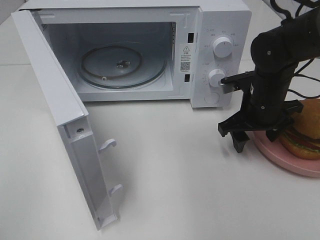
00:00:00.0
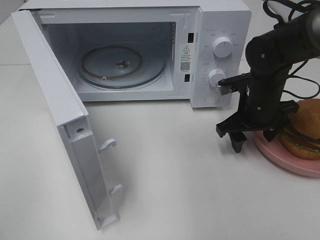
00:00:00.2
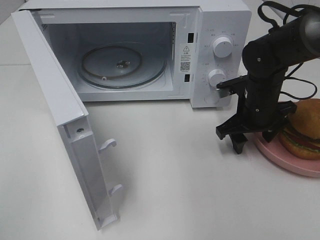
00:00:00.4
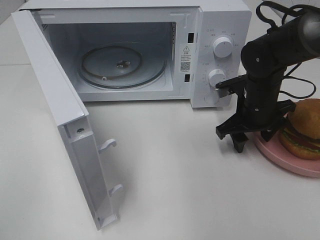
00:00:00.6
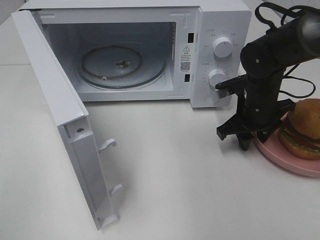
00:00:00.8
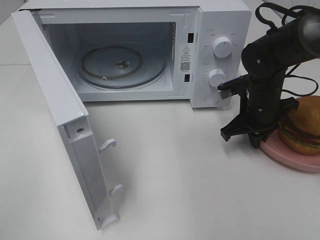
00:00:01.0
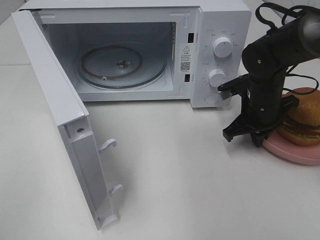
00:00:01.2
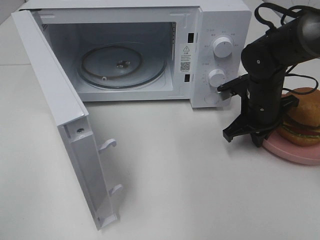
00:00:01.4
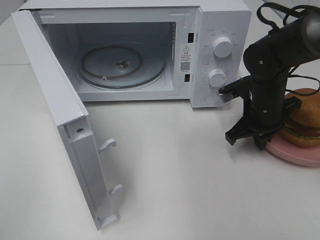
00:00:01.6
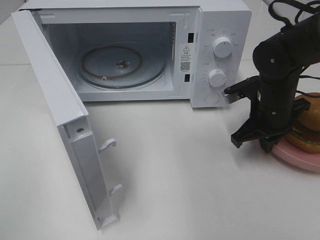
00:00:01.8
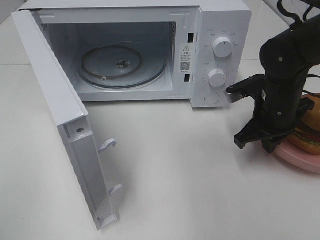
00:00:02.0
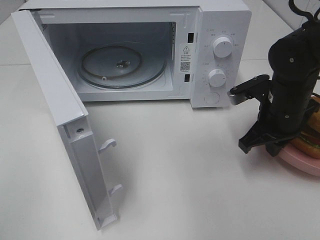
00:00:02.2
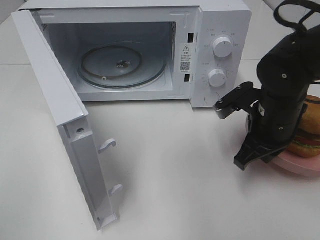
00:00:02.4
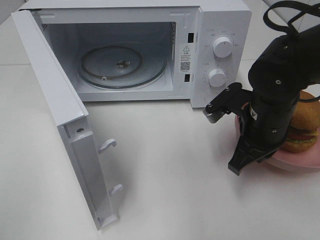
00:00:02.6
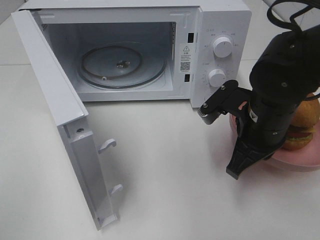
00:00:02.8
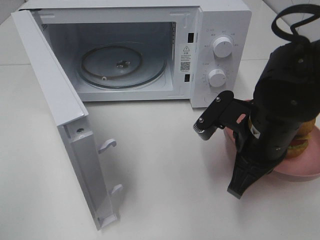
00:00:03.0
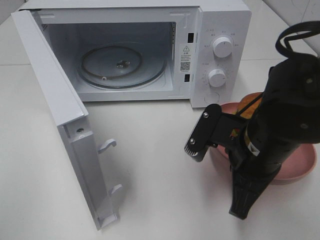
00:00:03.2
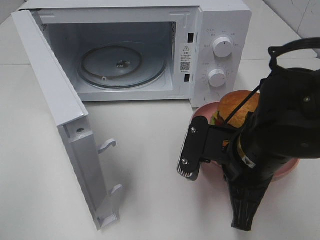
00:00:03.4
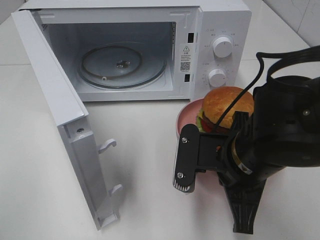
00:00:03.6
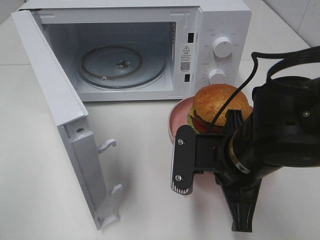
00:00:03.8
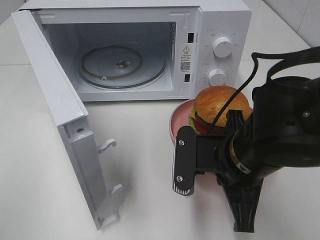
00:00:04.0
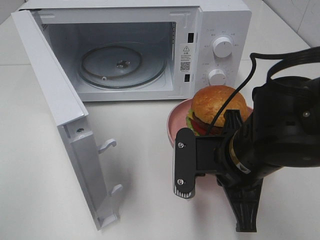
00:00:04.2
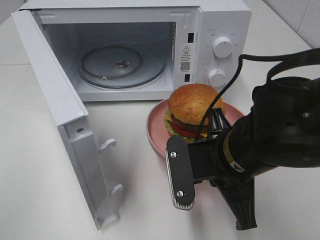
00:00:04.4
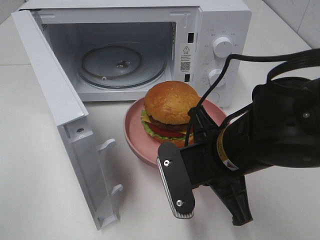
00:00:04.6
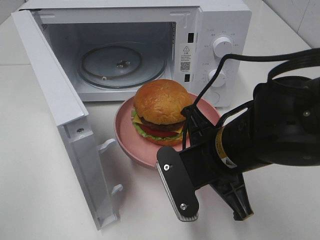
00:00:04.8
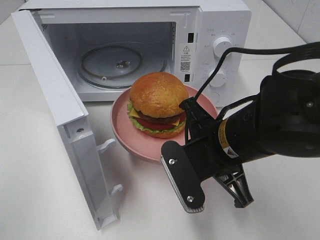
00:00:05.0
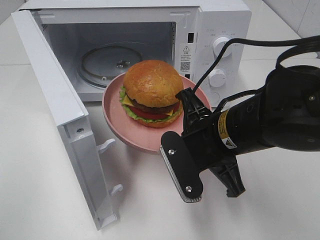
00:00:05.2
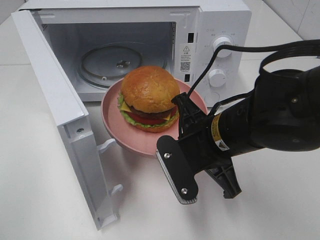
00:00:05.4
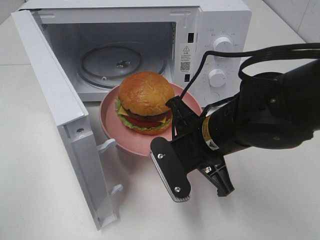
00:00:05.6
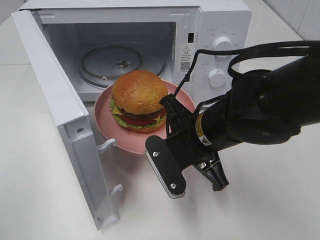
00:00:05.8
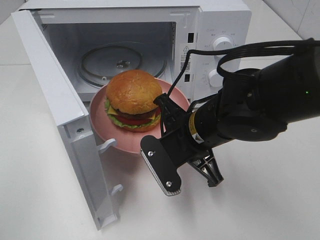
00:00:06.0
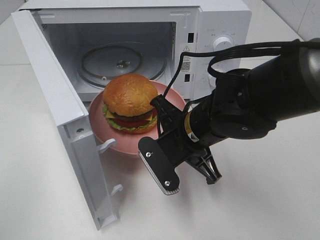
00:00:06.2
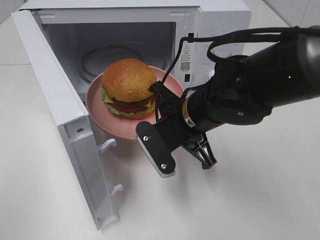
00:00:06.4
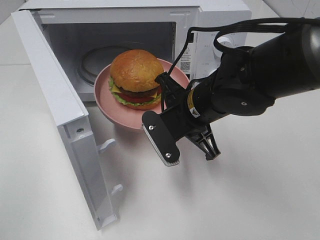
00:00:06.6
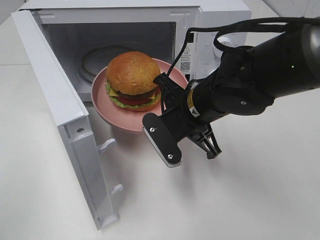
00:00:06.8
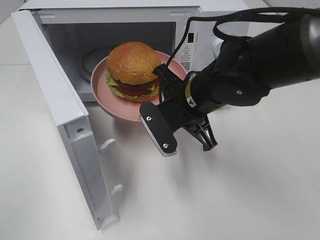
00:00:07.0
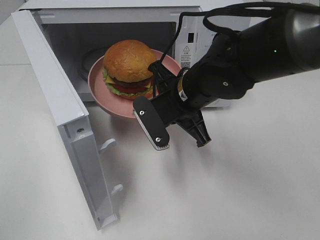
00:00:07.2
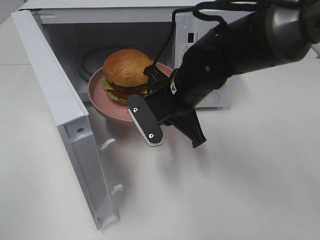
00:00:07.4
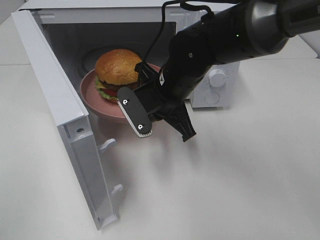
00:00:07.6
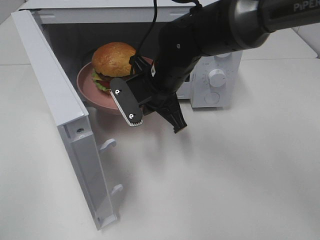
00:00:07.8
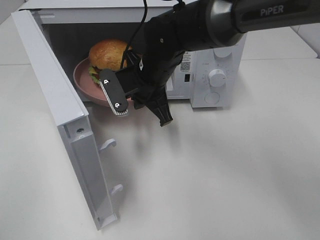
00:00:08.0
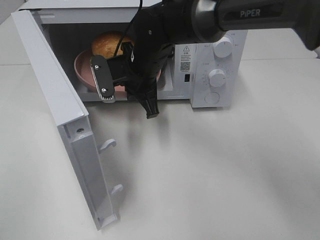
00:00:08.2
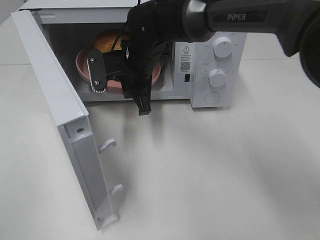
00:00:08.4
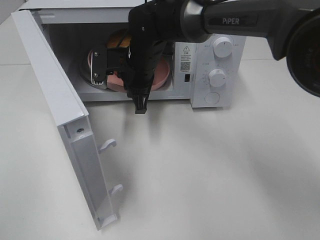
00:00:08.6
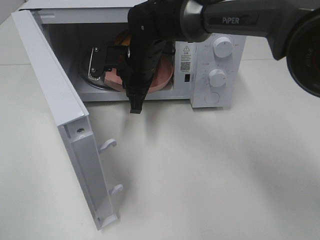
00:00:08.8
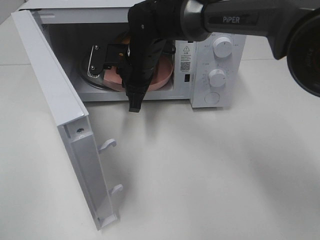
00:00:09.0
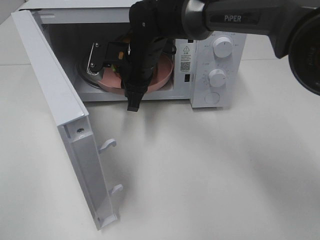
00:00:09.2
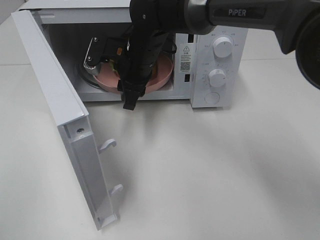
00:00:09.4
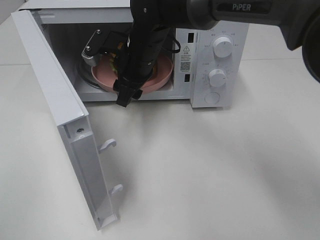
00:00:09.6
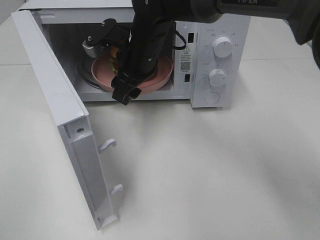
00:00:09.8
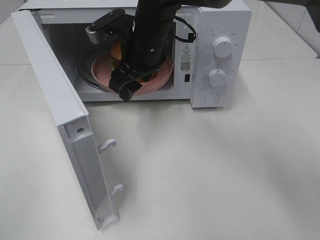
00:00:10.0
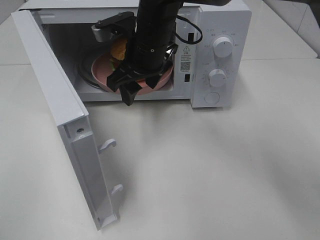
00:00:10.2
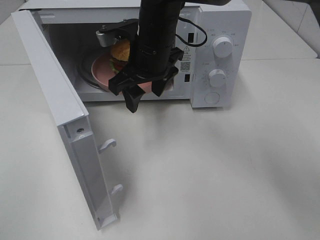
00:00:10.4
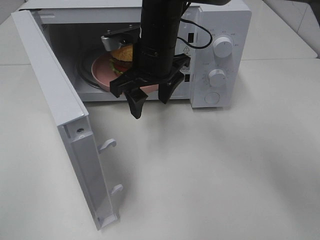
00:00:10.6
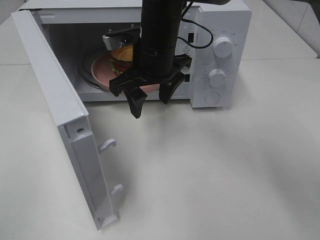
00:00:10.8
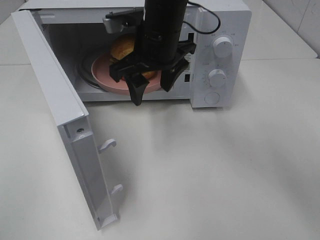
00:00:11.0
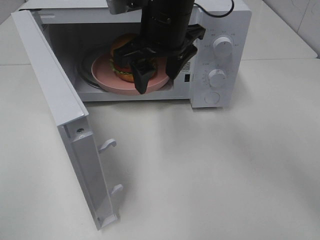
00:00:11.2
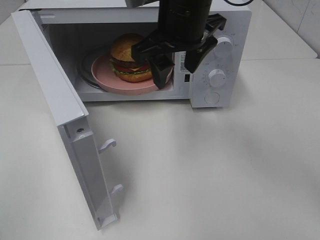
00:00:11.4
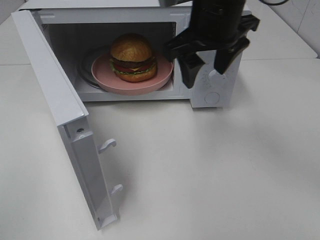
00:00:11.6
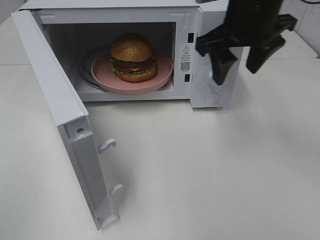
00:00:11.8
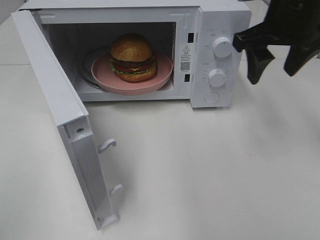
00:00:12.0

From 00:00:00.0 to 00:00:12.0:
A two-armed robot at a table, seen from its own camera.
Task of the whole recording: Heat the burger.
Step, from 00:00:01.2 to 00:00:09.2: Right hand: place the plate in the microwave.
From 00:00:00.0 to 00:00:01.6: The right gripper closes.
From 00:00:01.6 to 00:00:03.0: The right gripper travels backward and to the left by roughly 15 cm.
From 00:00:03.0 to 00:00:04.4: The right gripper ends up some 5 cm from where it was.
From 00:00:04.4 to 00:00:06.0: The right gripper heads forward, covering roughly 5 cm.
From 00:00:06.0 to 00:00:07.6: The right gripper moves forward, roughly 10 cm.
From 00:00:07.6 to 00:00:09.0: The right gripper shifts approximately 10 cm forward and to the left.
From 00:00:09.0 to 00:00:10.4: The right gripper moves some 5 cm, and opens up.
From 00:00:10.4 to 00:00:12.0: The right gripper moves to the right and upward, roughly 20 cm.

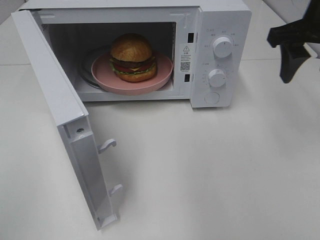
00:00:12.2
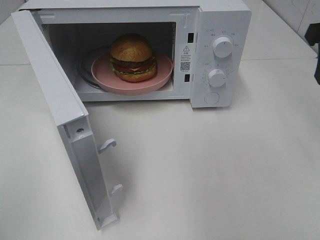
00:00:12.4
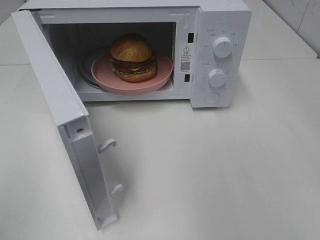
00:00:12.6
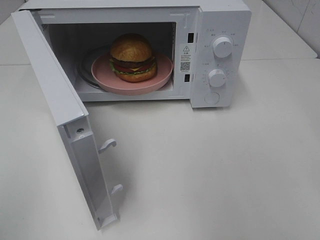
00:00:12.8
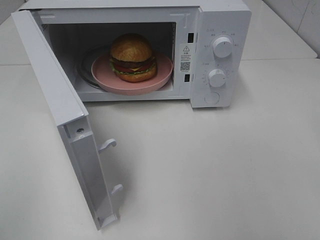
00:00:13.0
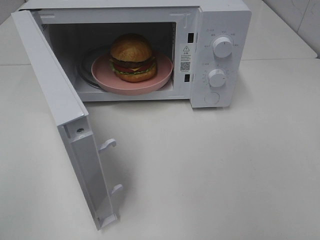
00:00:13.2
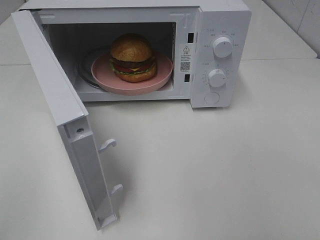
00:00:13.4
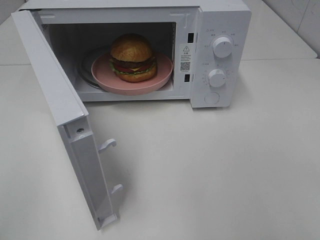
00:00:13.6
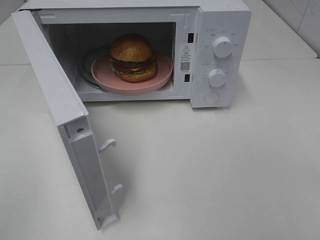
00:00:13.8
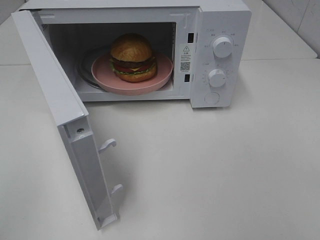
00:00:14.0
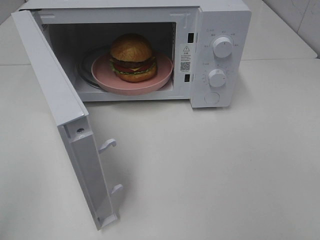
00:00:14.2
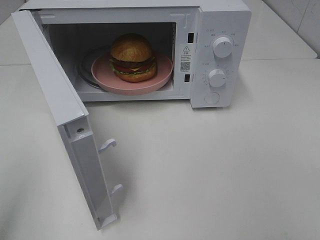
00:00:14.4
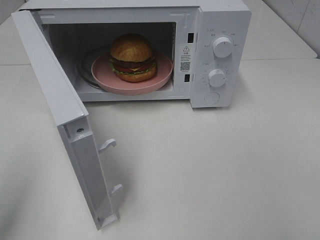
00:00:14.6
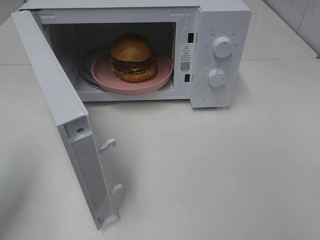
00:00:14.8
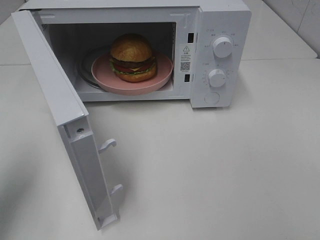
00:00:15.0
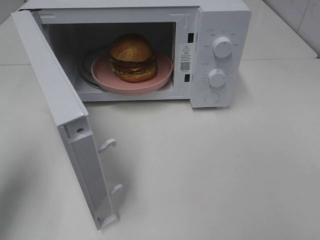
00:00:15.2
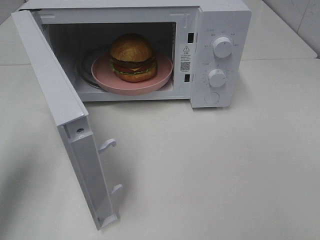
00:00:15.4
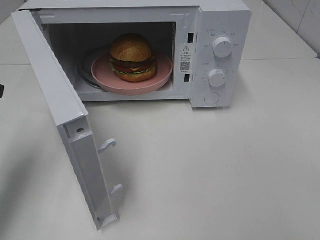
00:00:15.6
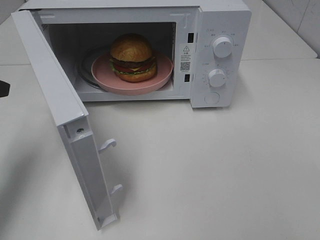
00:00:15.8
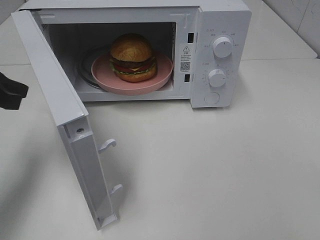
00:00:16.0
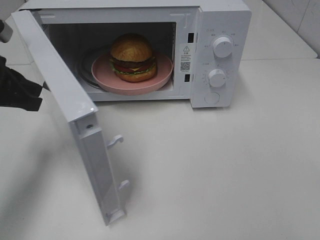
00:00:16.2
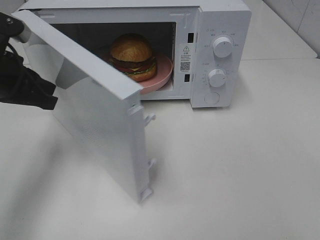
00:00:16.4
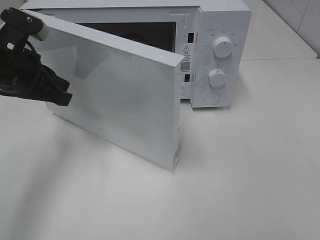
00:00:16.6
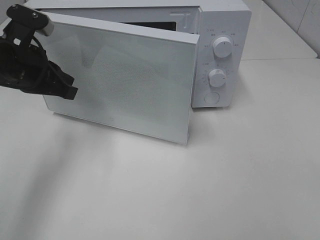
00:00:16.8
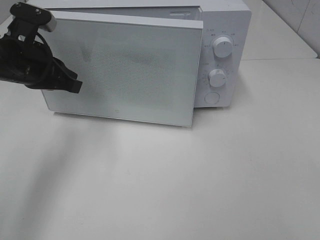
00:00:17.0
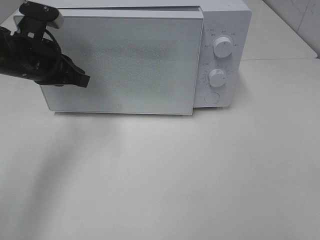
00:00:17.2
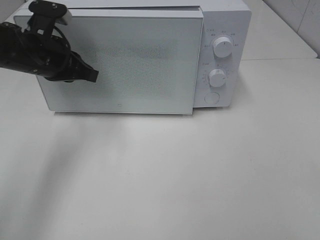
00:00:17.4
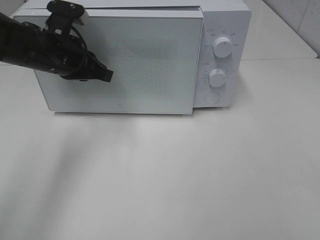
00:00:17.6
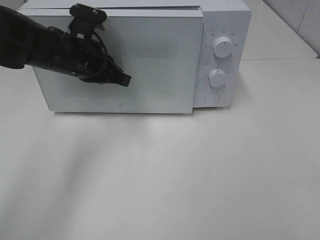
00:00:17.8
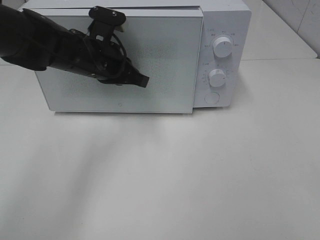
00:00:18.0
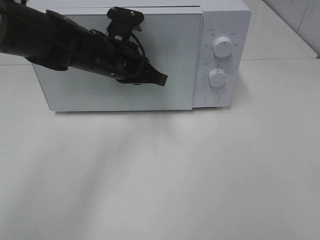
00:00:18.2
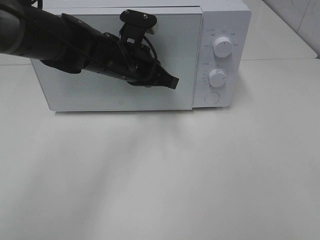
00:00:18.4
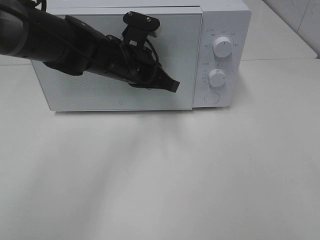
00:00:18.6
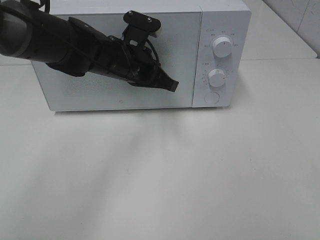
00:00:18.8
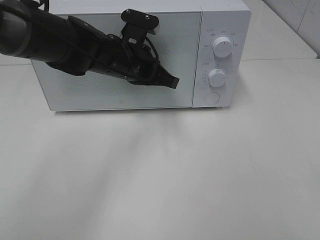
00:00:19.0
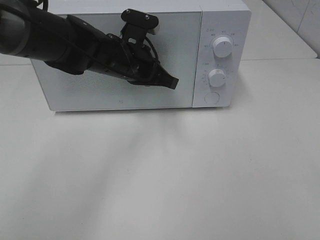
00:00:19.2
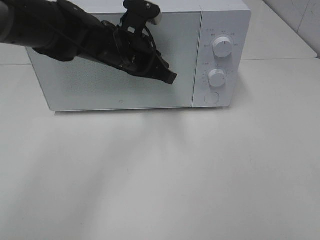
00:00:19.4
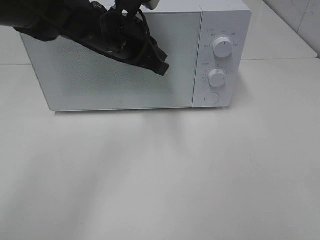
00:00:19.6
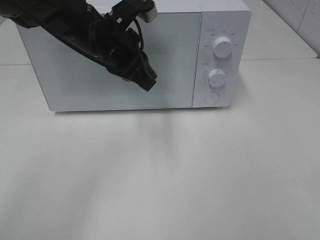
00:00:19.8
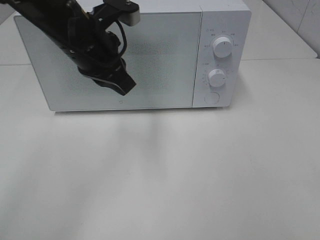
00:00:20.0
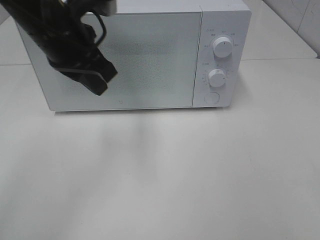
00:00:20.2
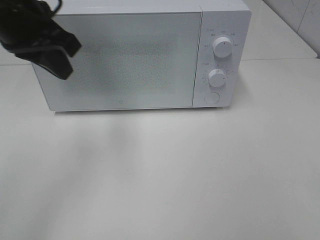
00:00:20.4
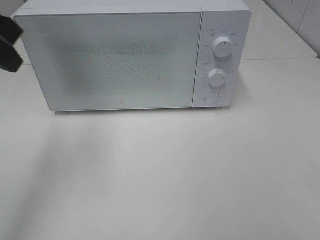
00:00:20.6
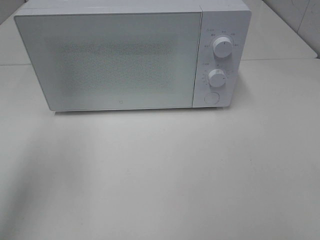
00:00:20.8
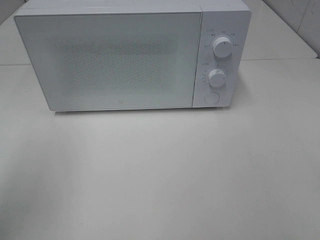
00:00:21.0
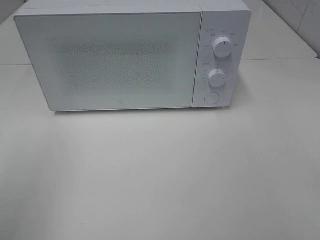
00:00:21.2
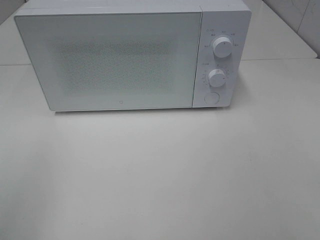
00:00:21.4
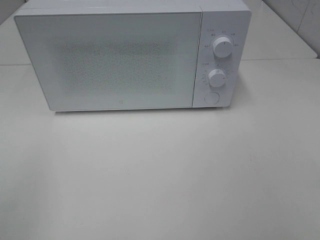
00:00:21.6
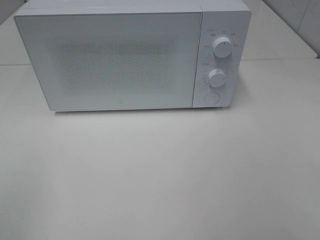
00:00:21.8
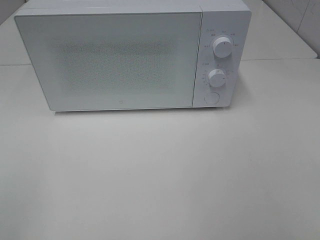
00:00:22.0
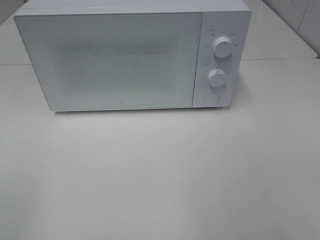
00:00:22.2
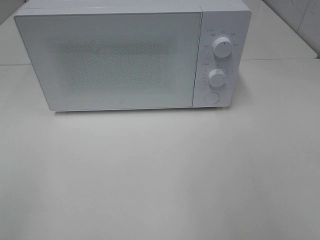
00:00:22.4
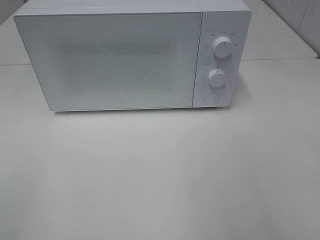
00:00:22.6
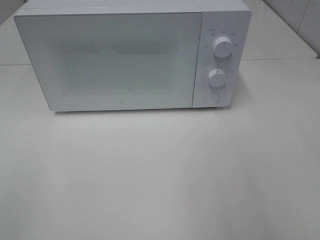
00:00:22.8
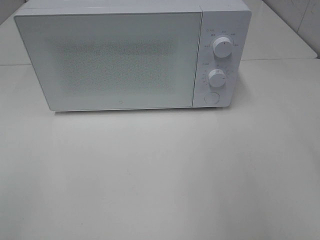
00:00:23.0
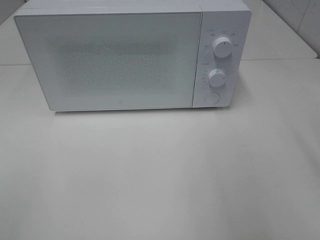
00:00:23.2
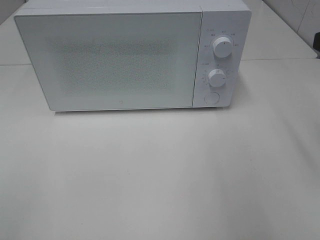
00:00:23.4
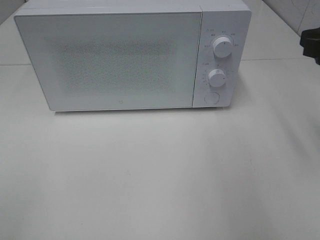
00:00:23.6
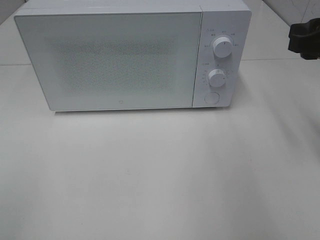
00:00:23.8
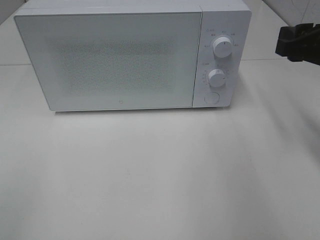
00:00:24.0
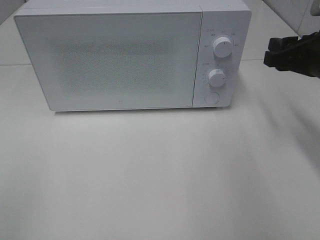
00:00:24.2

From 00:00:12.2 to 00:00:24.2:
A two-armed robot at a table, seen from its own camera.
Task of the whole recording: Heat the burger.
Step, from 00:00:12.2 to 00:00:19.2: Left hand: close the microwave door.
From 00:00:12.2 to 00:00:13.8: The right gripper is displaced backward by some 30 cm.
From 00:00:13.8 to 00:00:15.2: The left gripper shifts about 20 cm forward.
From 00:00:15.2 to 00:00:16.6: The left gripper moves forward, to the right and downward, some 15 cm.
From 00:00:16.6 to 00:00:18.2: The left gripper is displaced to the right and forward by roughly 15 cm.
From 00:00:18.2 to 00:00:19.8: The left gripper goes some 5 cm upward.
From 00:00:19.8 to 00:00:21.2: The left gripper travels backward and to the left by some 30 cm.
From 00:00:22.6 to 00:00:24.2: The right gripper is displaced forward and downward by approximately 25 cm.
